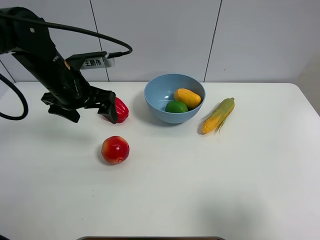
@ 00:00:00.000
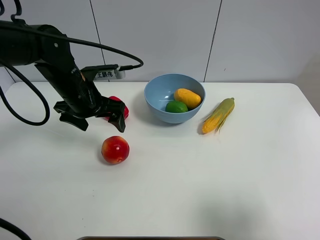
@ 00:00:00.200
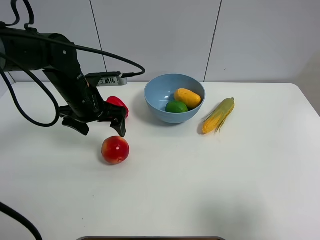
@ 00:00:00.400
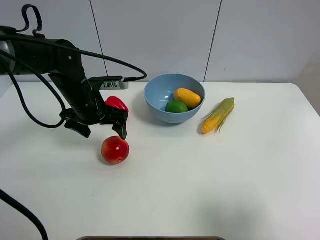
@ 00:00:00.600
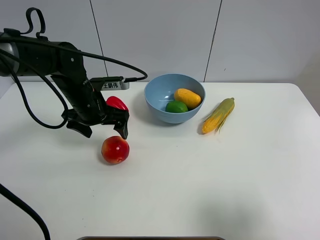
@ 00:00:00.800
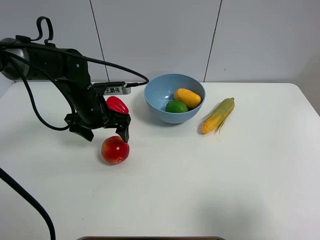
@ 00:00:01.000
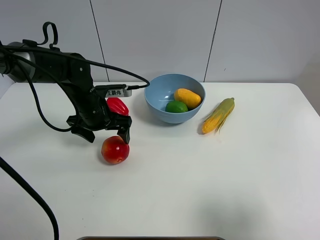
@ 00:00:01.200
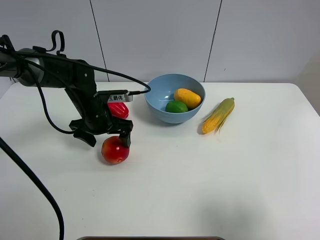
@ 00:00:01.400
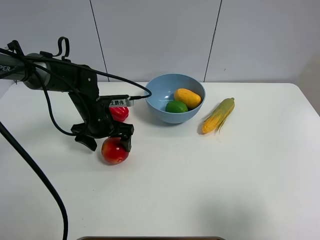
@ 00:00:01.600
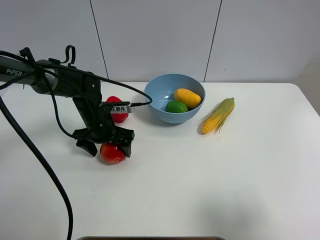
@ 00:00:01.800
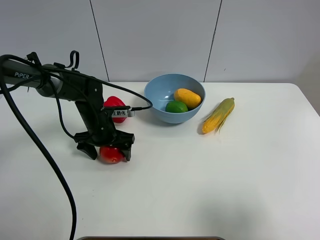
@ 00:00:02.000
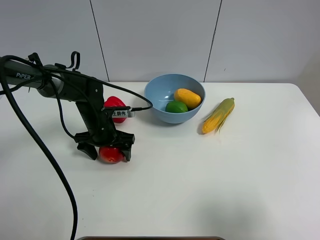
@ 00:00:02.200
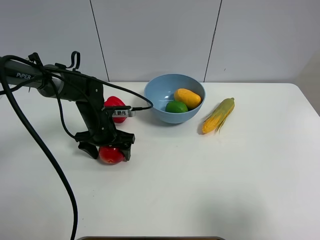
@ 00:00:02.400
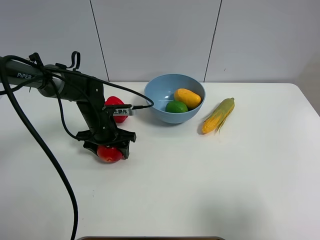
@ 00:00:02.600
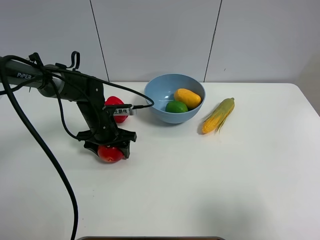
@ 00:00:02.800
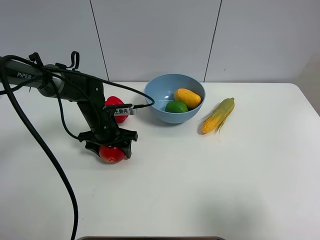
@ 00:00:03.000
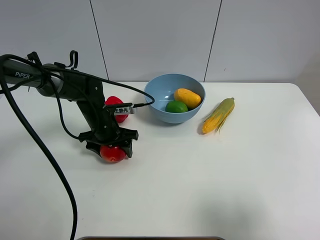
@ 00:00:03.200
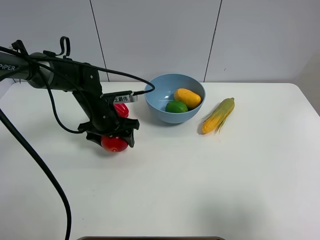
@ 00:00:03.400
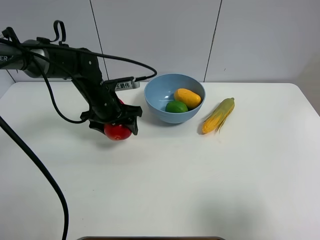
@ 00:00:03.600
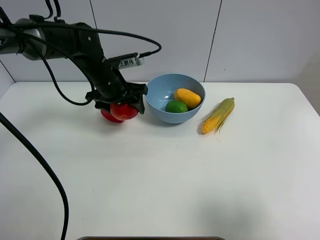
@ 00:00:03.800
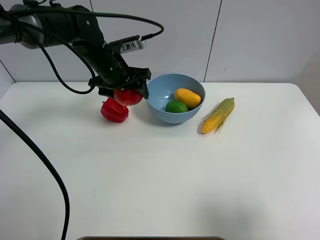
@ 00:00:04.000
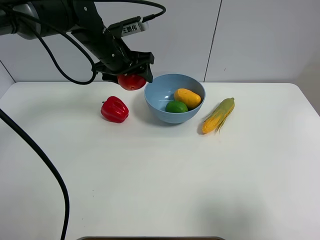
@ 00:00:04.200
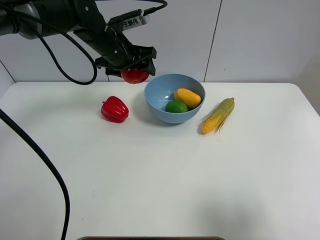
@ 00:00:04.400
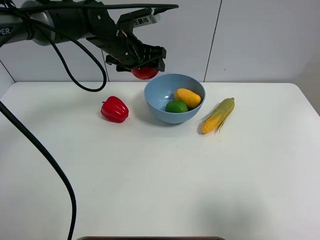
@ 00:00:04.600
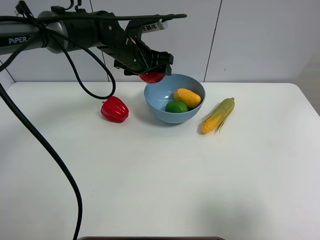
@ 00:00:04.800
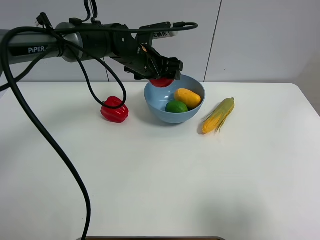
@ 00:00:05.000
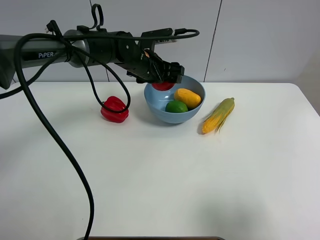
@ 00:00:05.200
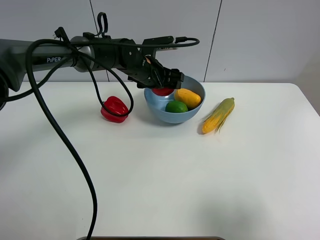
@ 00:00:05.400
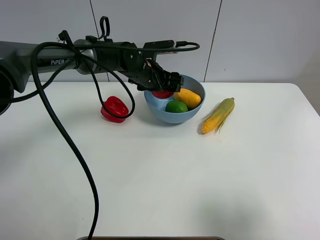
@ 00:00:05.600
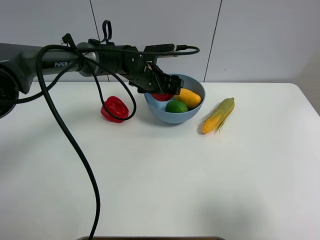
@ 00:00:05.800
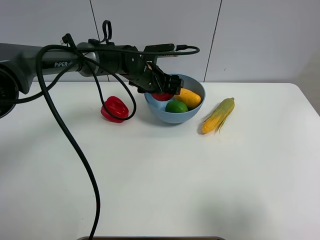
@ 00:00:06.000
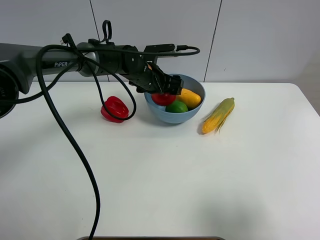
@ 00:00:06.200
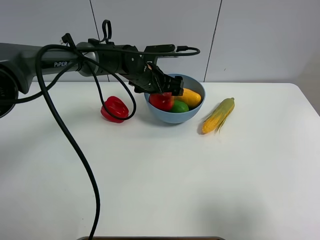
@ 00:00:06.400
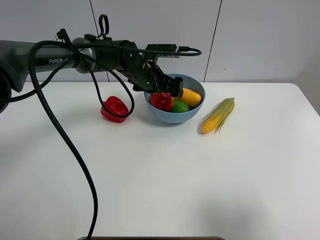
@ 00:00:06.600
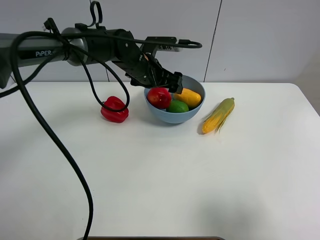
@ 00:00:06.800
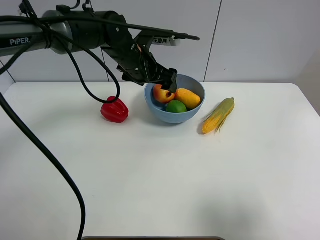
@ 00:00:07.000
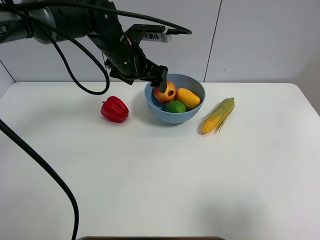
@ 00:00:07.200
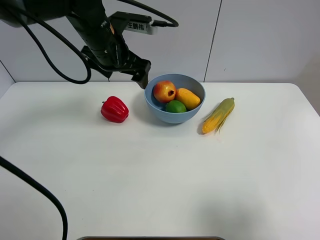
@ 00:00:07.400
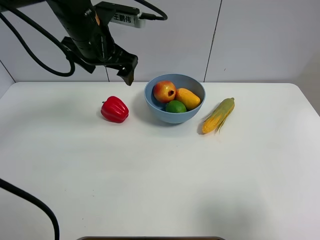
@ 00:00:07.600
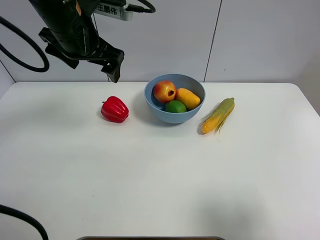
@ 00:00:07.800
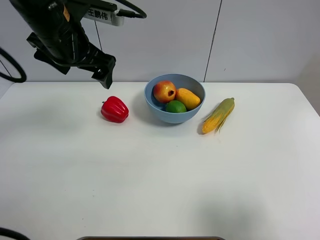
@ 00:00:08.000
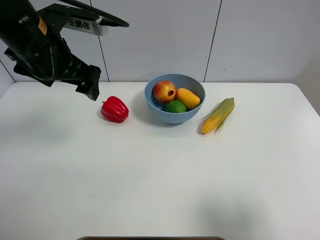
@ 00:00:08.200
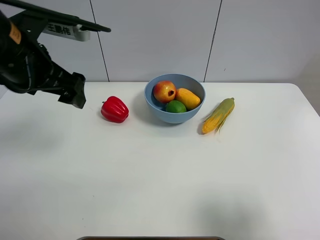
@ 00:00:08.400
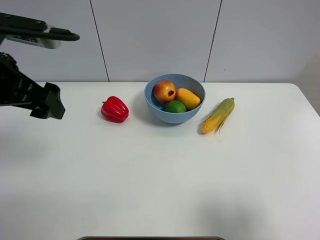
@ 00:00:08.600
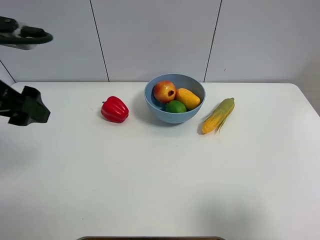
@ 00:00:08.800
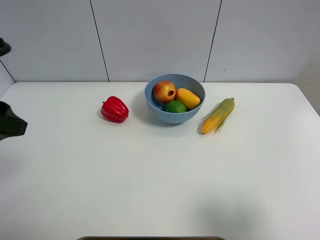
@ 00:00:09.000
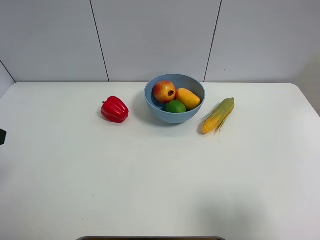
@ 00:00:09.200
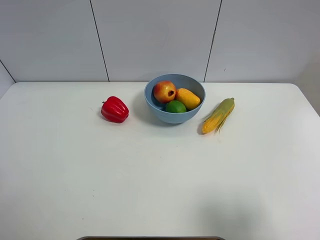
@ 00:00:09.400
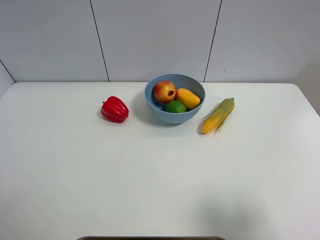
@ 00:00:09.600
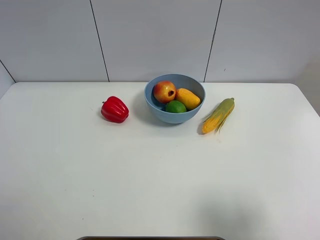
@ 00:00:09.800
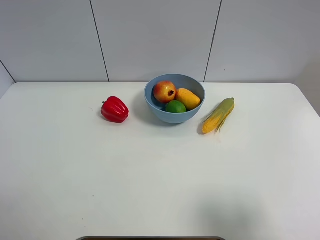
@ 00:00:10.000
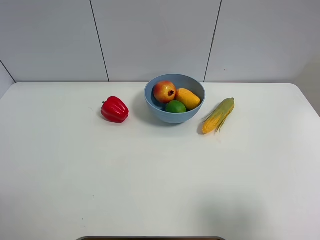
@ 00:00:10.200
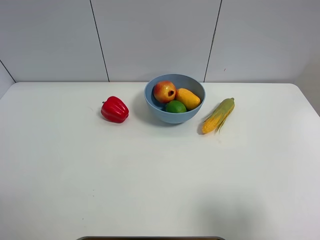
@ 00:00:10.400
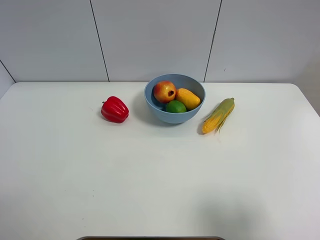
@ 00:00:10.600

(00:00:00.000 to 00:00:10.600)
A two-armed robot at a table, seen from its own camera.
Task of the whole recording: Put the three fruits on the table into a bowl.
Step, 00:00:00.000 - 00:00:02.600: Grasp the pomegranate with left gripper.
Step, 00:00:02.800 - 00:00:06.400: Place the pomegranate in the blue bowl with left gripper.
00:00:00.000 - 00:00:01.600: The left gripper travels downward by about 10 cm.
00:00:01.600 - 00:00:03.000: The left gripper closes.
00:00:03.000 - 00:00:04.600: The left gripper heads upward, forward and to the right, covering approximately 20 cm.
00:00:04.600 - 00:00:06.000: The left gripper moves downward, about 10 cm.
00:00:06.000 - 00:00:07.600: The left gripper moves upward, to the left and backward, about 20 cm, and opens up.
00:00:07.600 - 00:00:09.000: The left gripper shifts about 25 cm backward and to the left.
00:00:09.000 - 00:00:10.600: The left gripper heads backward, downward and to the left, covering some 15 cm.
